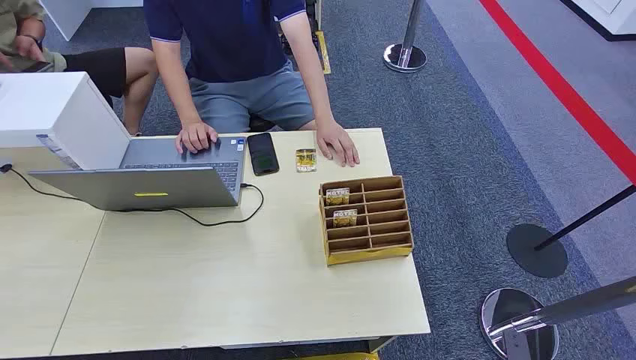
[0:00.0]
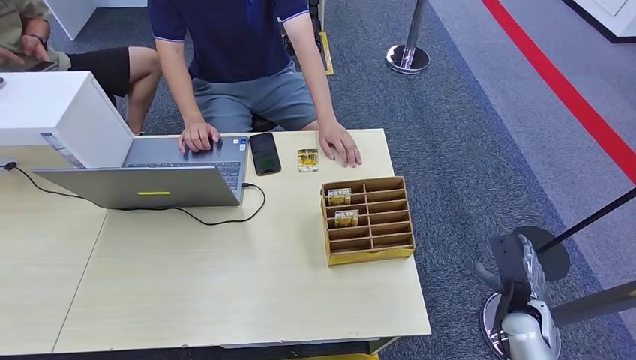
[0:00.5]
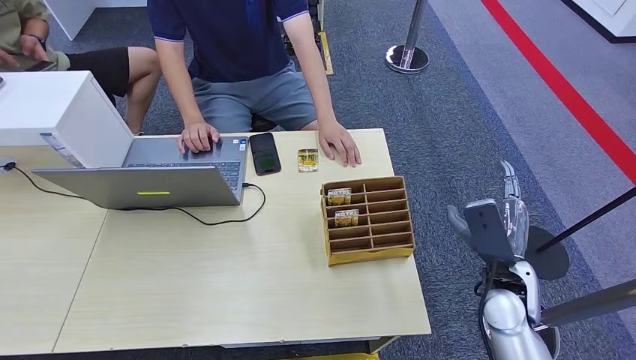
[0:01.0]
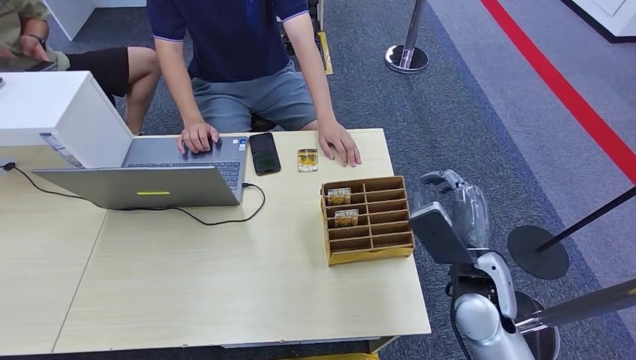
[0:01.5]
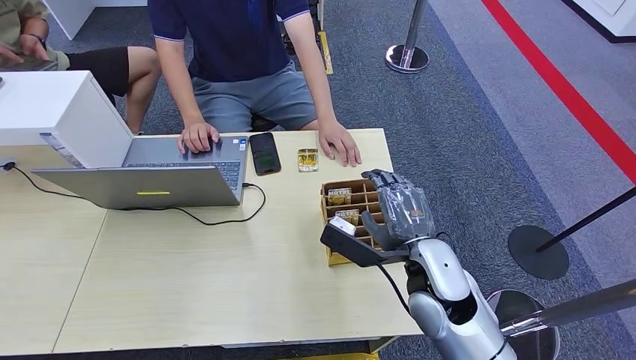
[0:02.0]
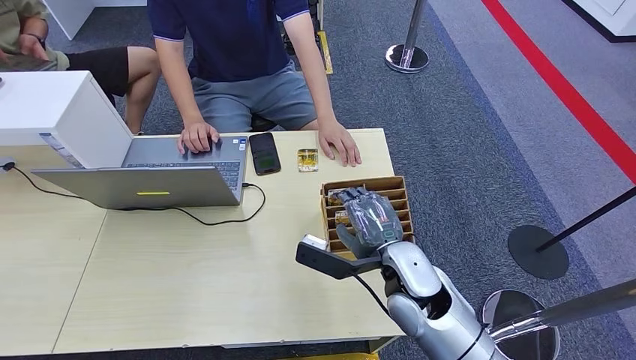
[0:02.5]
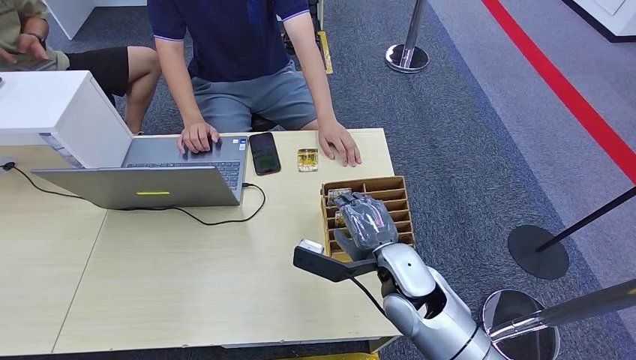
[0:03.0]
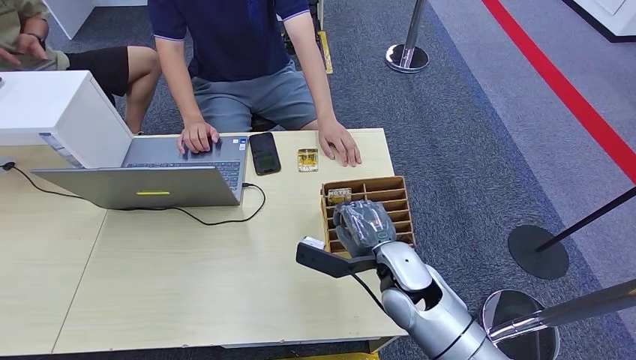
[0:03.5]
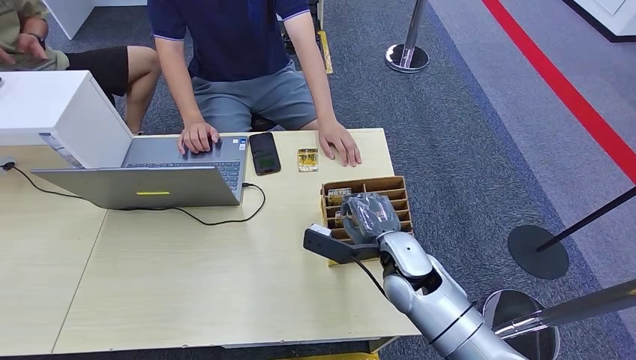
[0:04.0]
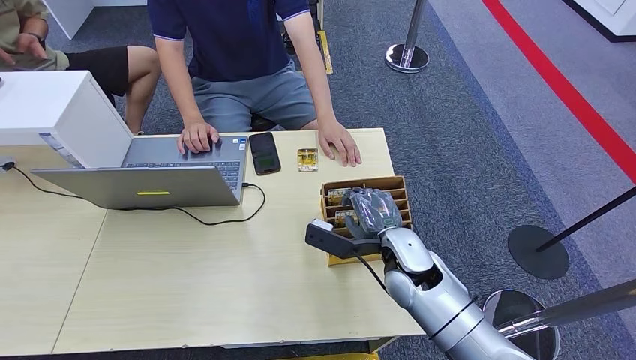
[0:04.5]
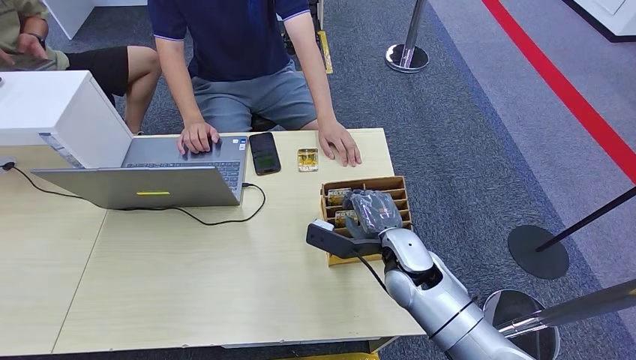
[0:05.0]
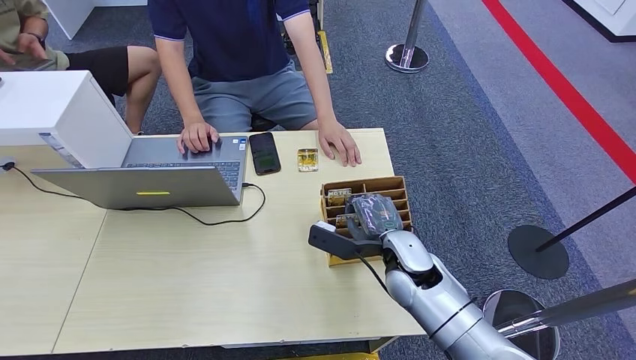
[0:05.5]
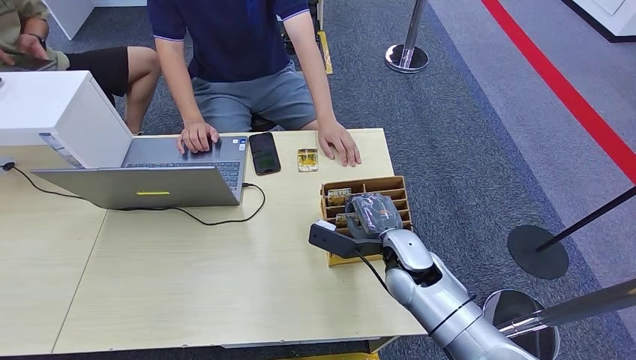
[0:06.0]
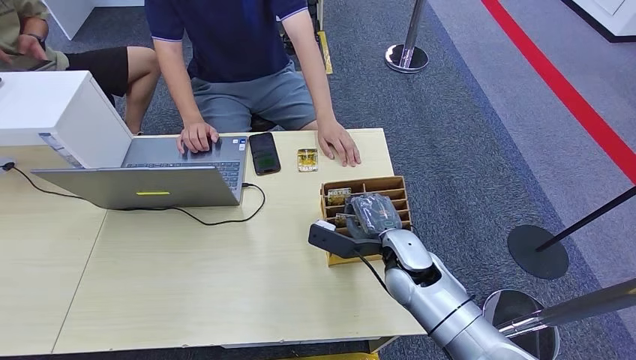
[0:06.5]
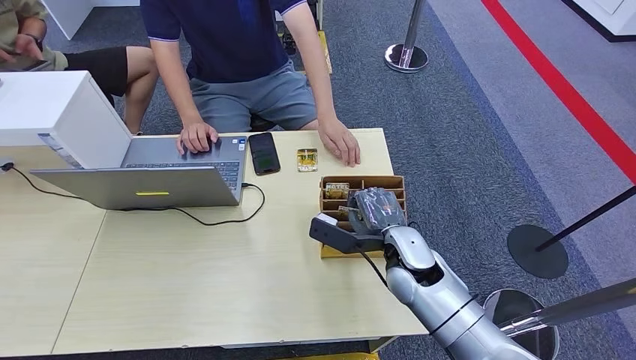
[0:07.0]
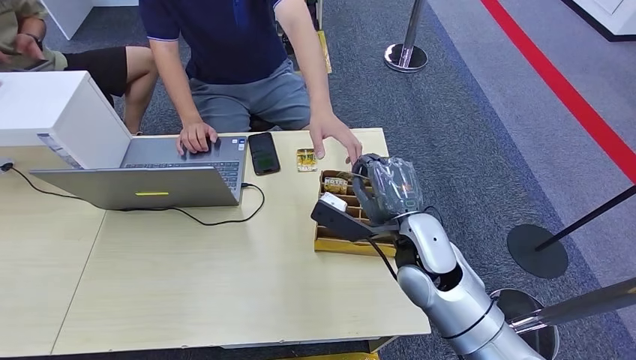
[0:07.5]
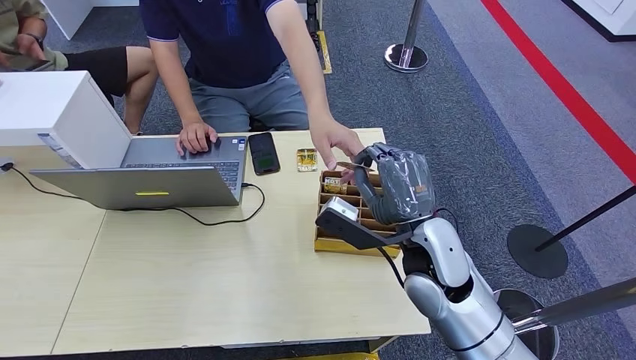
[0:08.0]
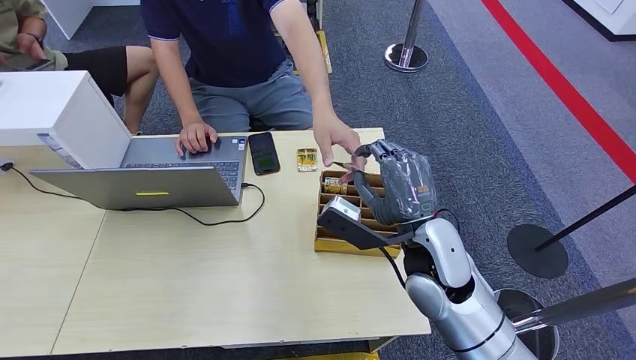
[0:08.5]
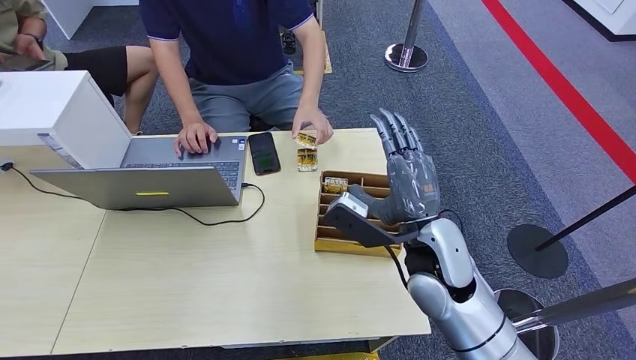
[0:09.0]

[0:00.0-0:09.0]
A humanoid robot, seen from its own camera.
Step, 0:00.0 to 0:06.5: Pick up the key card from the card box.
Step, 0:07.0 to 0:09.0: Hand the key card to the target.
0:02.0 to 0:04.5: The right hand goes some 5 cm downward and forward.
0:04.5 to 0:07.0: There are only small adjustments of the hands.
0:07.0 to 0:09.0: The right hand travels upward by about 10 cm.
